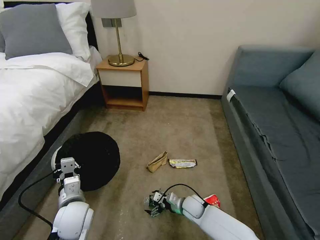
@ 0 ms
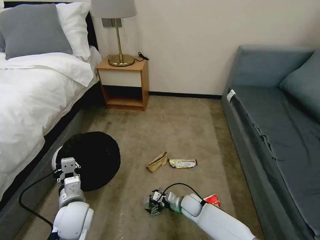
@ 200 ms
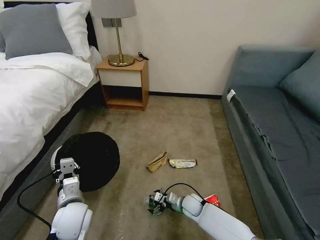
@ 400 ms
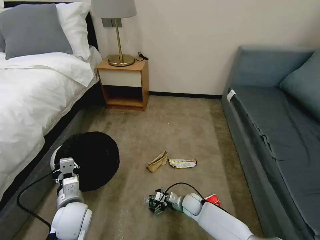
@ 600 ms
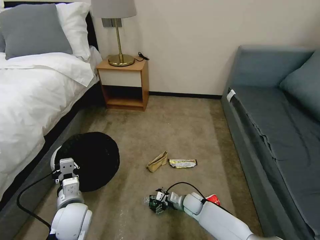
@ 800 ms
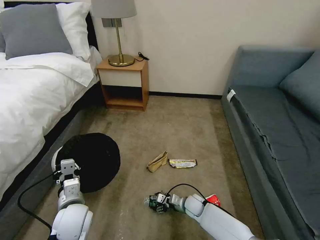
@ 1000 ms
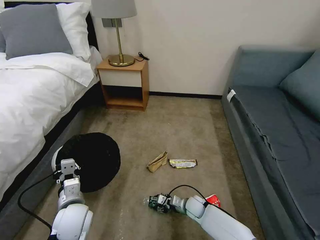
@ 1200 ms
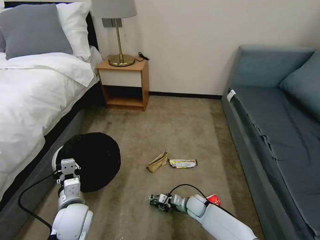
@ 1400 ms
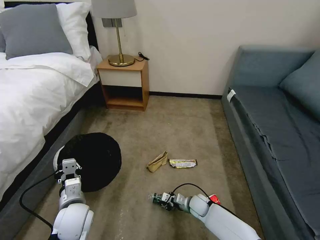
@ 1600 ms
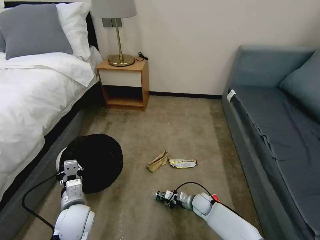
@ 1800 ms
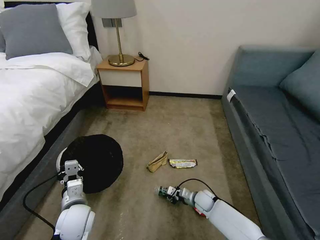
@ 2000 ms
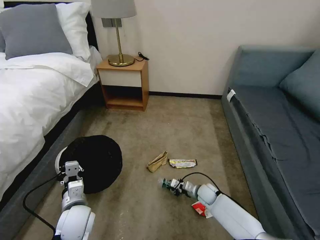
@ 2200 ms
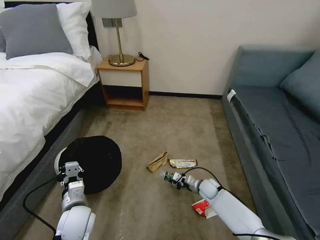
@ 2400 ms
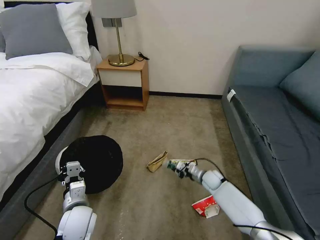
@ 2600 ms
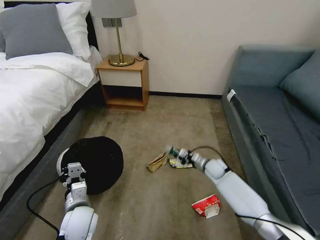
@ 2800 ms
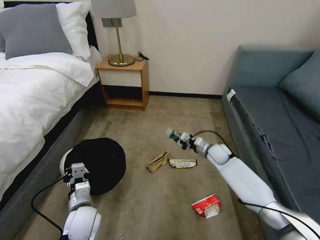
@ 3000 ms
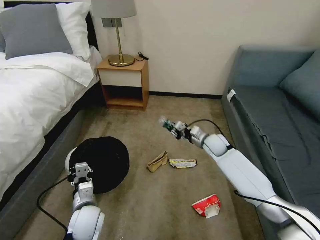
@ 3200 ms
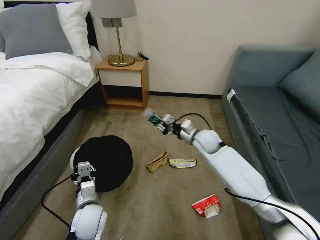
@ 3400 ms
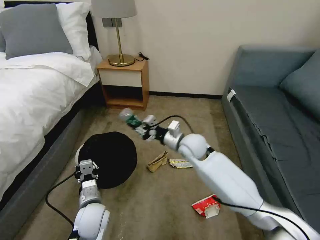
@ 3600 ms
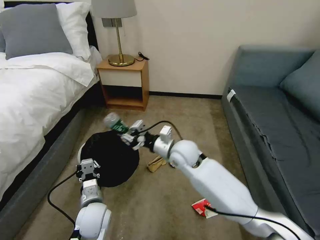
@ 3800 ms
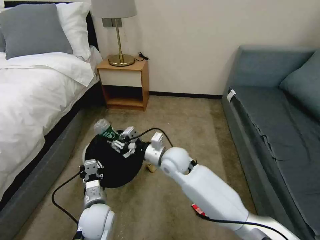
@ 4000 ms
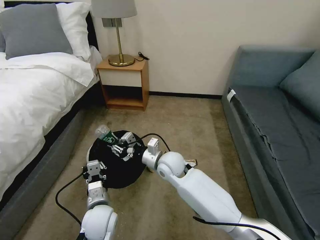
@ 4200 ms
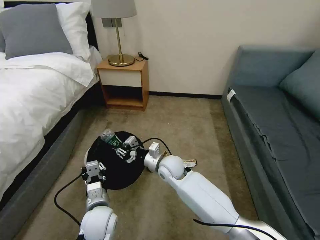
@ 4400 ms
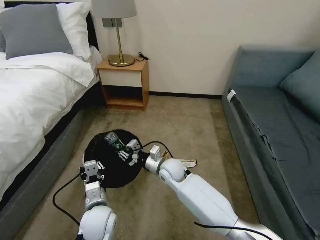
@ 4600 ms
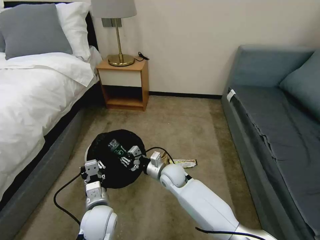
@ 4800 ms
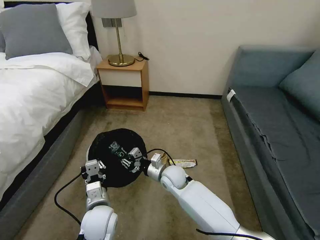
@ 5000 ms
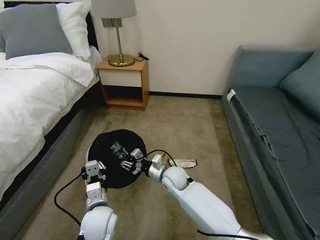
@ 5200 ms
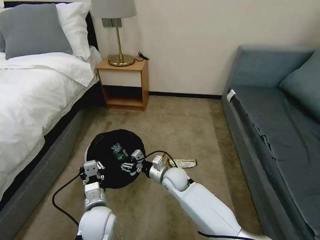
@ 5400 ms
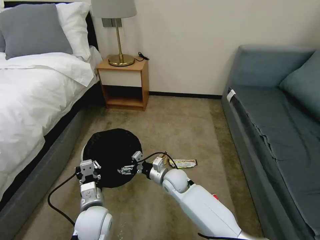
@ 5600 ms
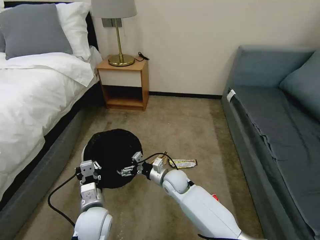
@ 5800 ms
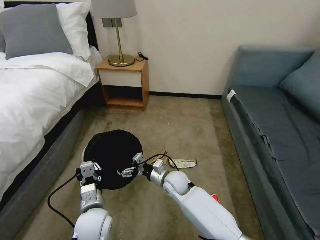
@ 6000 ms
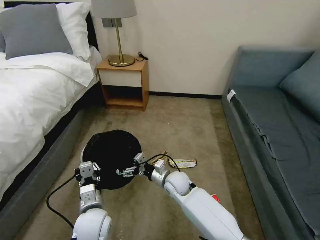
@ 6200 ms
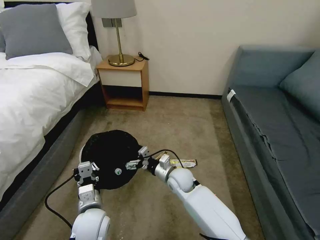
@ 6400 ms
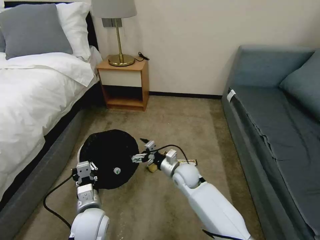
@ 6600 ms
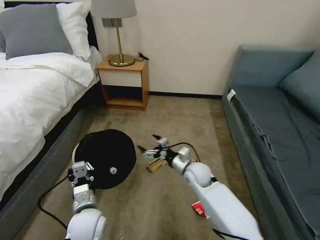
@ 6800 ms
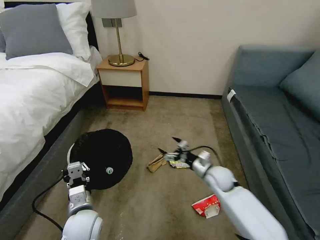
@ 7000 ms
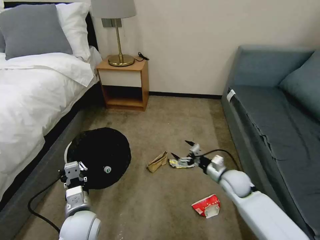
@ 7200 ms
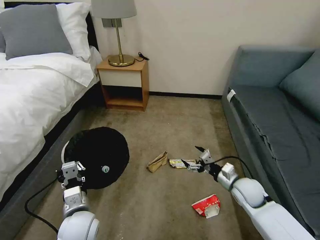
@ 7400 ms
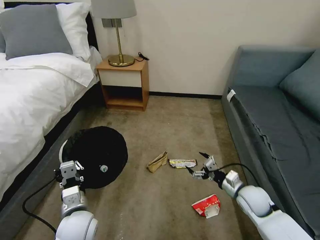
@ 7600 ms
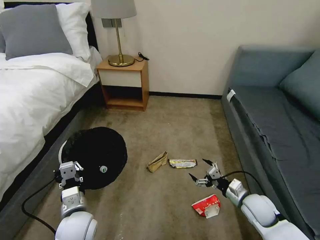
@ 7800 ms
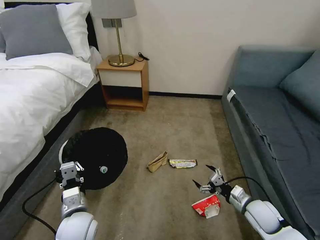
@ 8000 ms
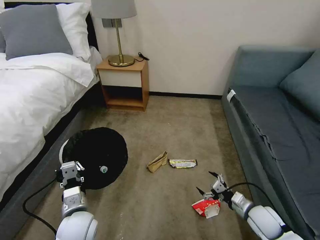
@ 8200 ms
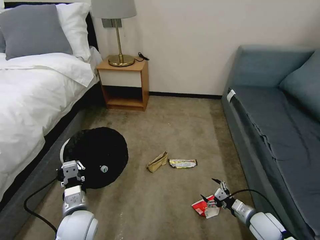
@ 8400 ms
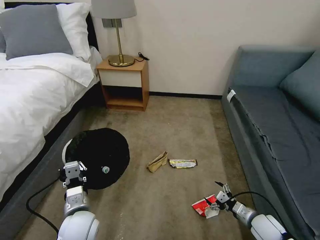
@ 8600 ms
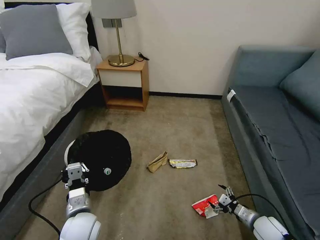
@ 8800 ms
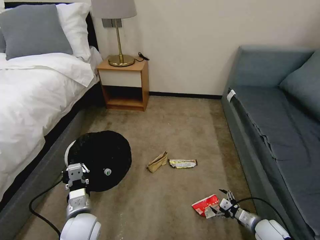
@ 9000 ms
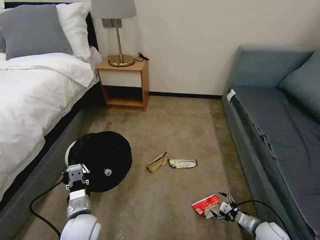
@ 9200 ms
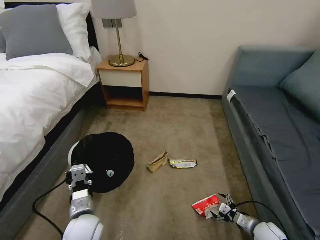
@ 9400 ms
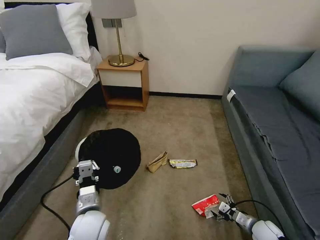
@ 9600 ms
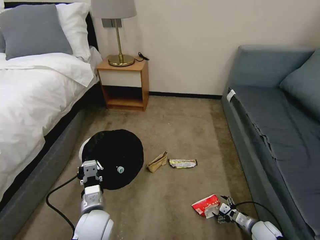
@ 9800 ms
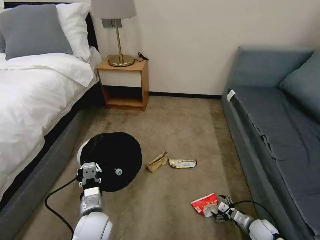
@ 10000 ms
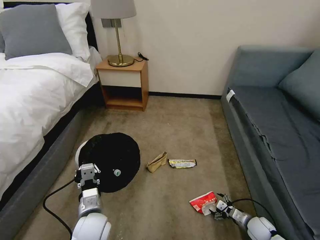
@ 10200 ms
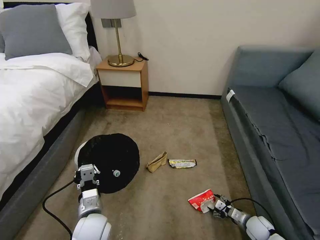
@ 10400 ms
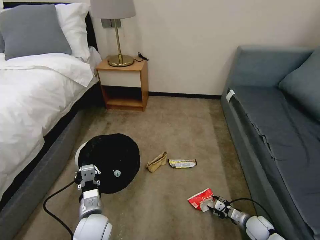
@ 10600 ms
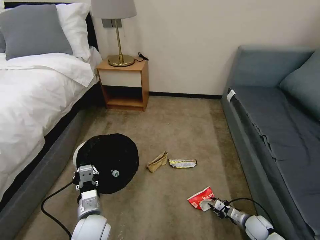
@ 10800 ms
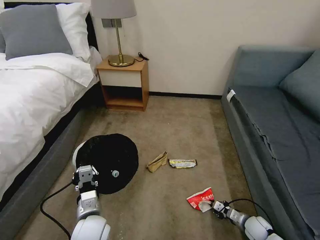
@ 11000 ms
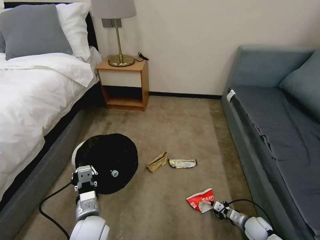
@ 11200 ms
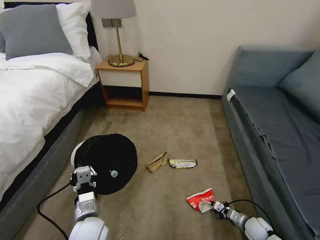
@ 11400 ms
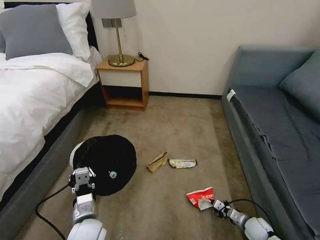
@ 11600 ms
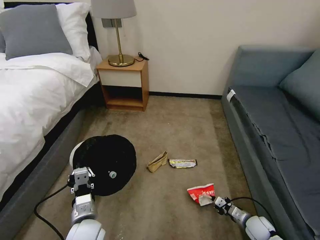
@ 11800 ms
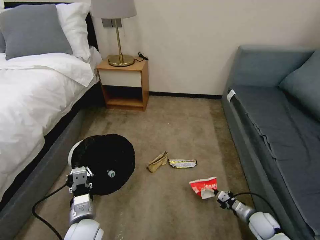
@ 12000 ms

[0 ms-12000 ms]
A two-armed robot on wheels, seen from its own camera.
Task of the whole recording: Pick up the trash bin, then pick up the garbage on the floor and place it into the trash bin.
0 ms to 1600 ms: The right gripper closes its fingers.
1600 ms to 3000 ms: The right gripper heads upward, forward and to the right, covering about 25 cm.
3000 ms to 4400 ms: The left gripper heads to the right, covering some 5 cm; the right gripper heads to the left and backward, covering approximately 25 cm.
4400 ms to 6000 ms: The right gripper moves downward, about 5 cm, and opens up.
6000 ms to 7600 ms: The right gripper moves to the right, about 25 cm.
7600 ms to 9000 ms: The right gripper is displaced downward, backward and to the right by some 15 cm.
9000 ms to 10400 ms: The right gripper goes approximately 5 cm downward.
10400 ms to 12000 ms: The right gripper closes.

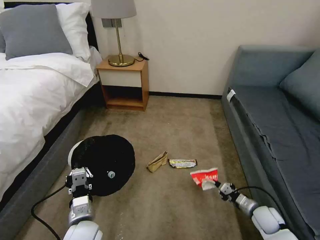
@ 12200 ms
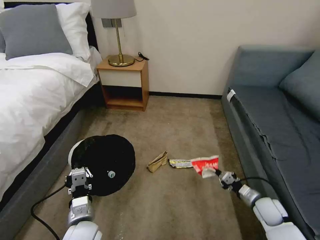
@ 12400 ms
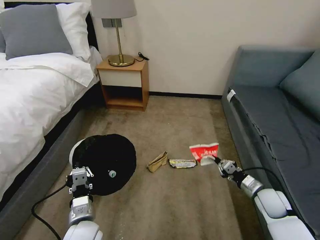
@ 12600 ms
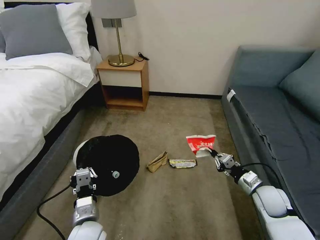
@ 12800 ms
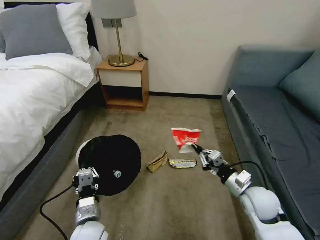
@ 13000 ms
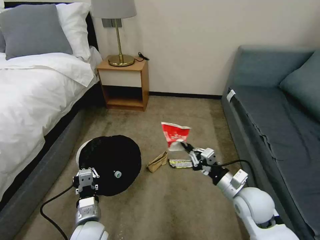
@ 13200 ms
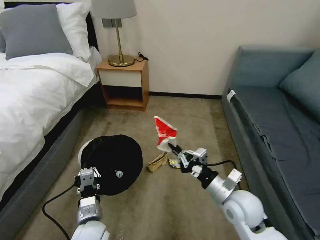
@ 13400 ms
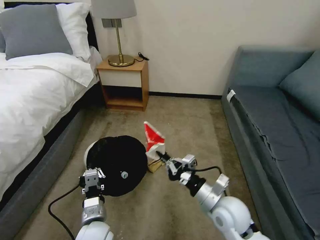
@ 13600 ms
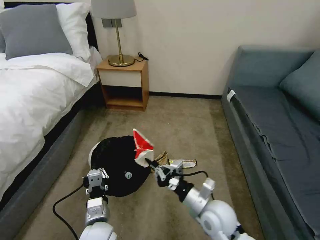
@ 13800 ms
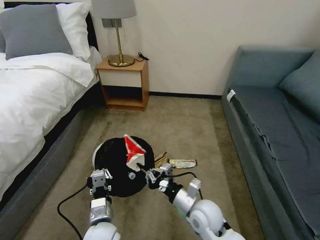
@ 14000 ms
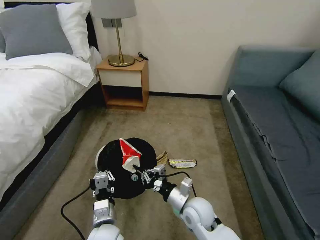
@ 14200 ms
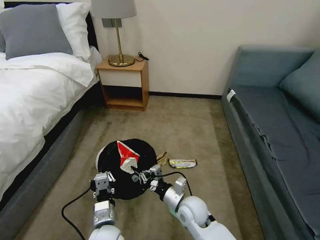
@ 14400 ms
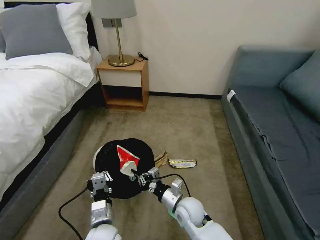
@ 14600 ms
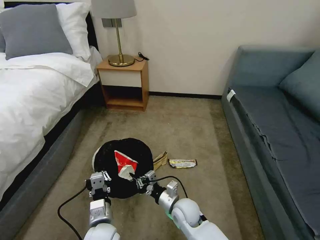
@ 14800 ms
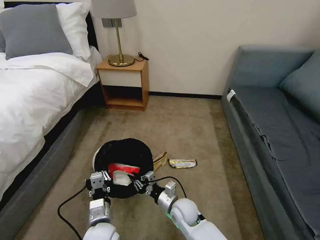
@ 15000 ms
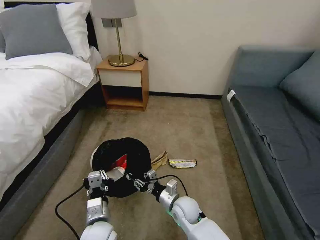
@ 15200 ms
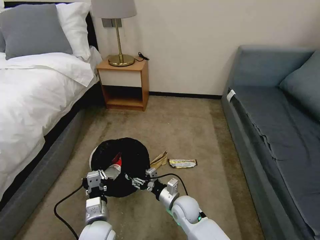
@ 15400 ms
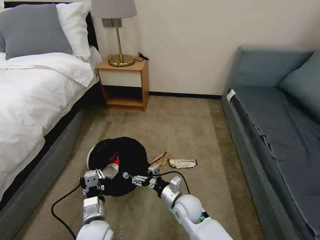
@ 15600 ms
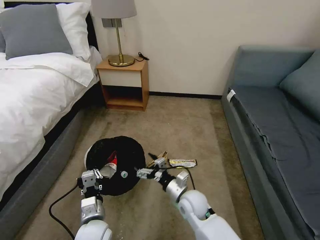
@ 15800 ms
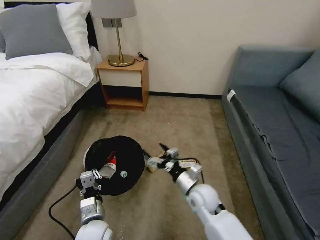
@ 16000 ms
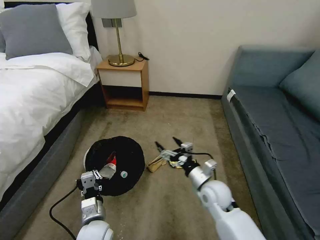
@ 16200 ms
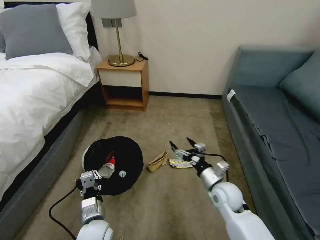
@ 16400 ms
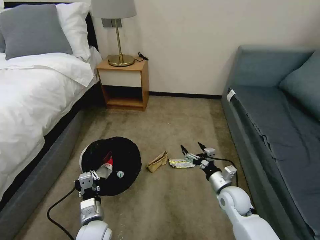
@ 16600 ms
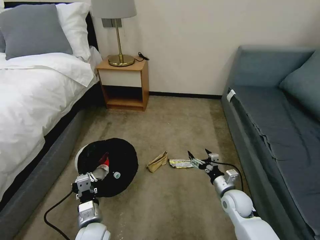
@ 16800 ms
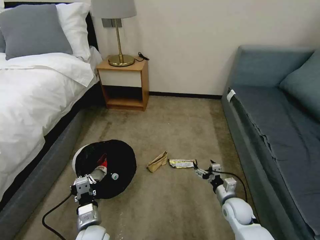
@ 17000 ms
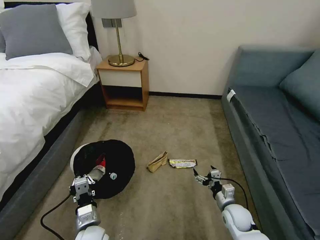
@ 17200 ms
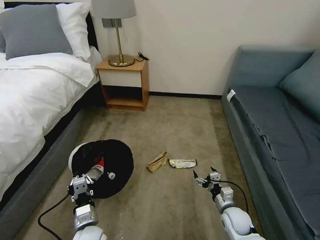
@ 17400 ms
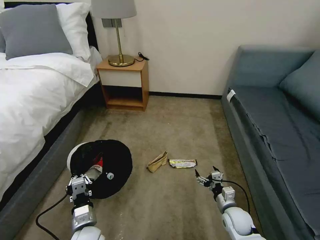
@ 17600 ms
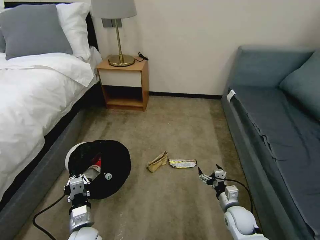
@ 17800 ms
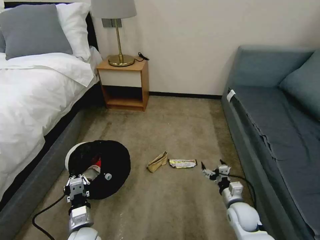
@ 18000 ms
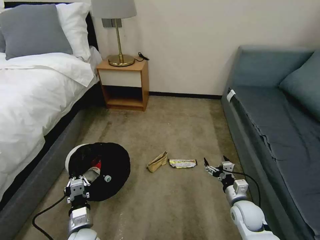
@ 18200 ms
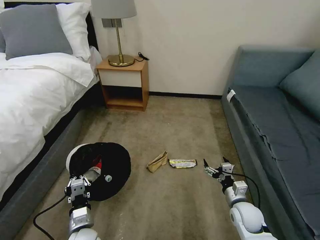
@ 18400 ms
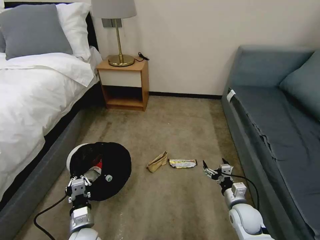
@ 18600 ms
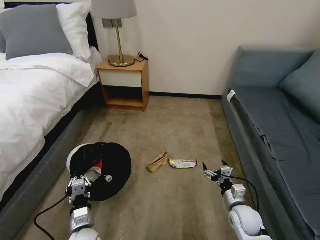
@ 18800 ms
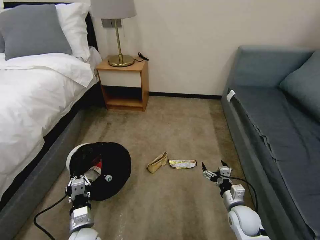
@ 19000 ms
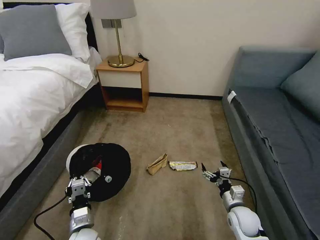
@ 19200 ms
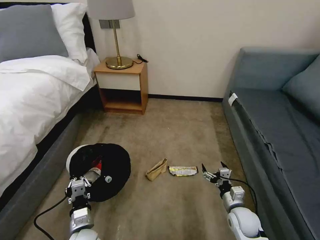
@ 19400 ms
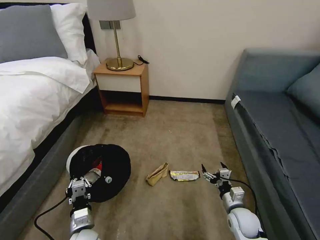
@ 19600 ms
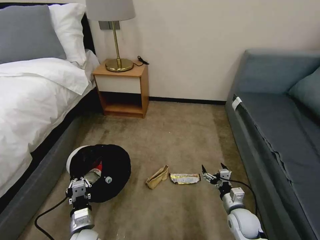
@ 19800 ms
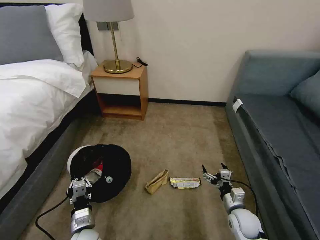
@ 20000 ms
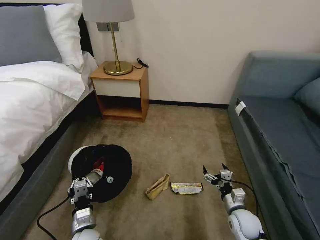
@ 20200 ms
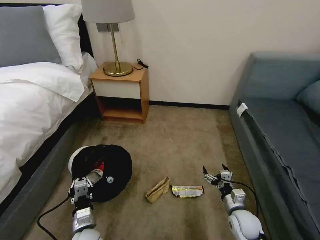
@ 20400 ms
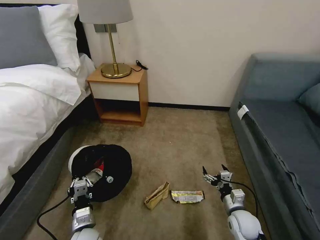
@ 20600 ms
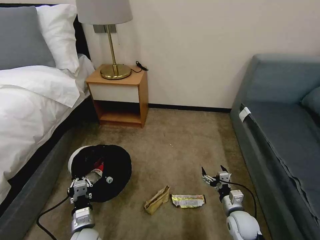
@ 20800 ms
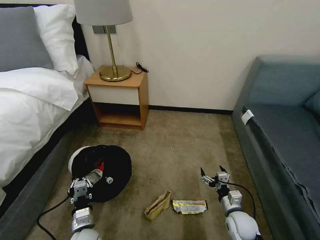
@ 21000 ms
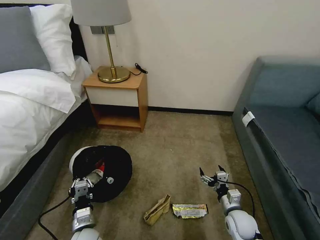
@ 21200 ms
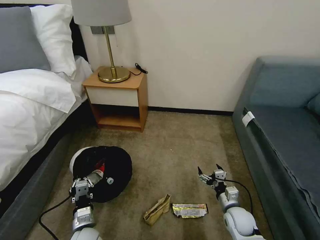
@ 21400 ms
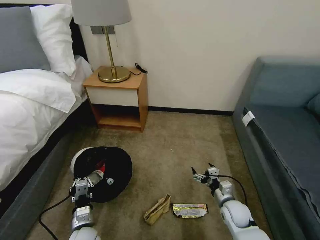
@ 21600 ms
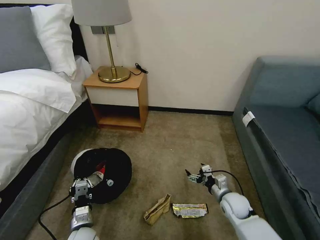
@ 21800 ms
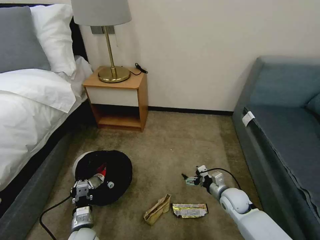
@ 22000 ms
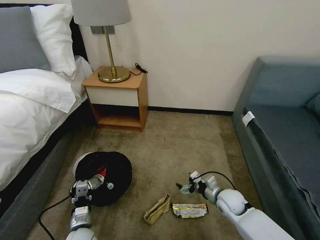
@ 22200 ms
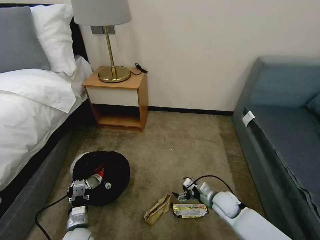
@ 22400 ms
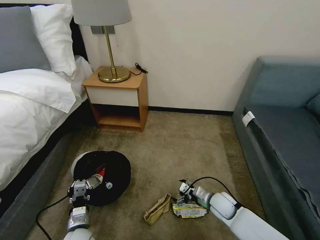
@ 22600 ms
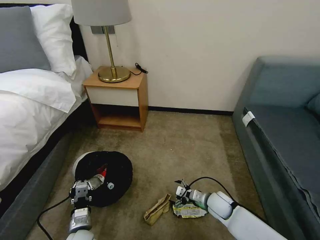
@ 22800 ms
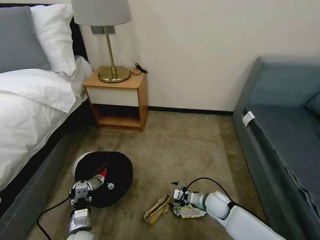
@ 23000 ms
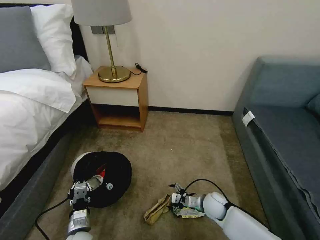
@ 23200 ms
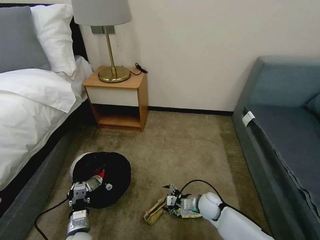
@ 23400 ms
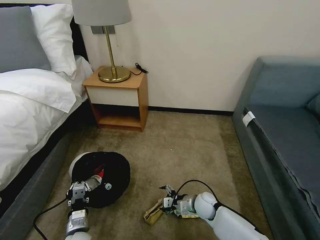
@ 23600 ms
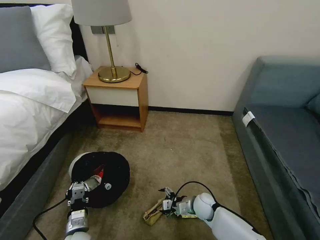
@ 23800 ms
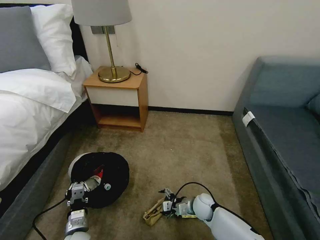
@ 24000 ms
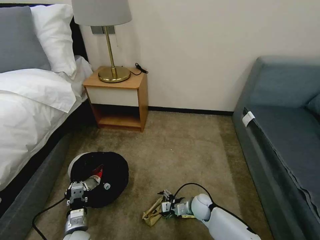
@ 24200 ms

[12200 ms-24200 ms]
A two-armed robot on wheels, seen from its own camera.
Task of the whole recording: Pick up the trash bin, then pick up the garbage on the floor and place it into the trash bin.
12200 ms to 13800 ms: The right gripper is displaced to the left and upward by roughly 30 cm.
13800 ms to 15200 ms: The right gripper goes roughly 15 cm downward, to the left and forward, and opens up.
15200 ms to 16600 ms: The right gripper moves to the right, about 15 cm, and opens.
18200 ms to 19800 ms: There are only small adjustments of the grippers.
21200 ms to 22600 ms: The right gripper is displaced forward by roughly 5 cm.
22600 ms to 24200 ms: The right gripper goes some 10 cm to the left and downward.
